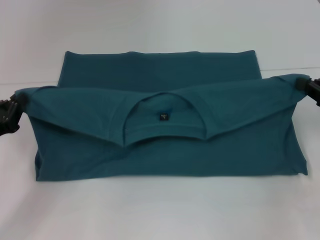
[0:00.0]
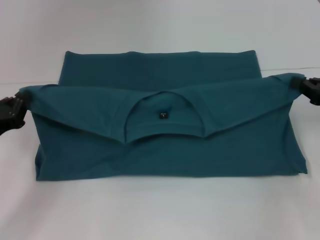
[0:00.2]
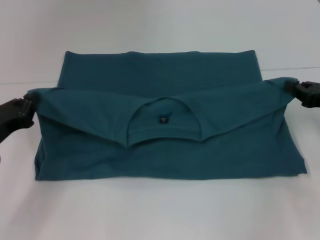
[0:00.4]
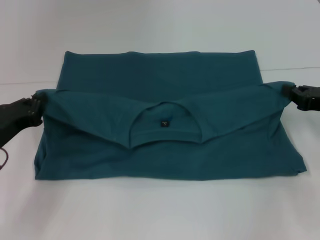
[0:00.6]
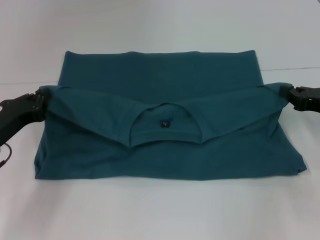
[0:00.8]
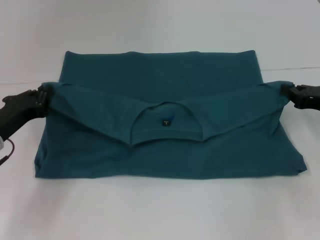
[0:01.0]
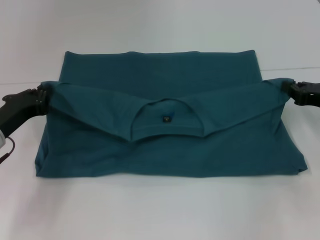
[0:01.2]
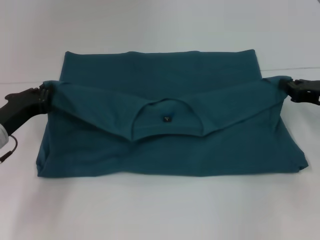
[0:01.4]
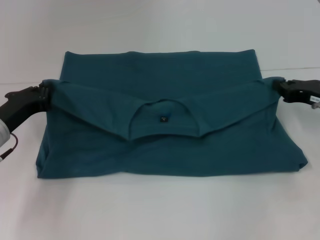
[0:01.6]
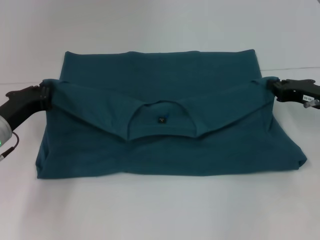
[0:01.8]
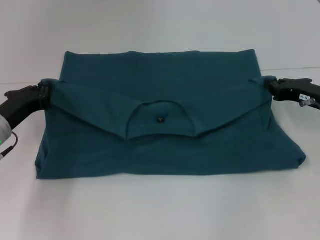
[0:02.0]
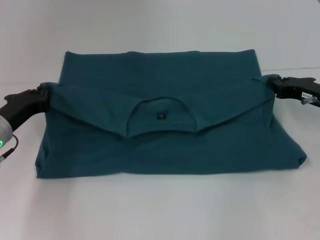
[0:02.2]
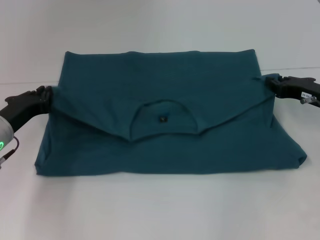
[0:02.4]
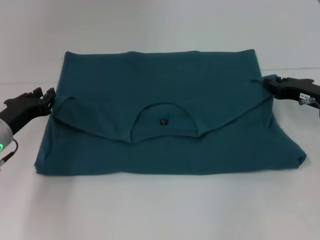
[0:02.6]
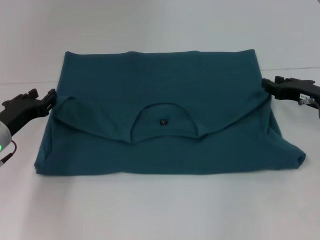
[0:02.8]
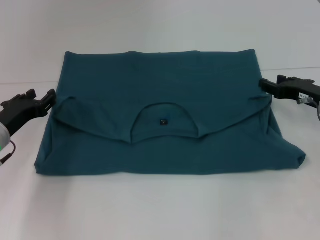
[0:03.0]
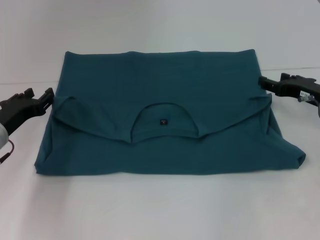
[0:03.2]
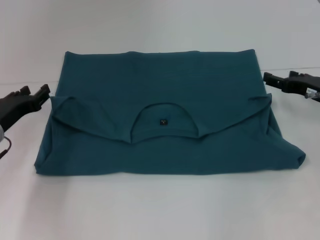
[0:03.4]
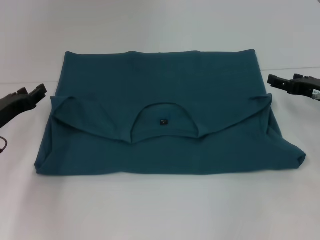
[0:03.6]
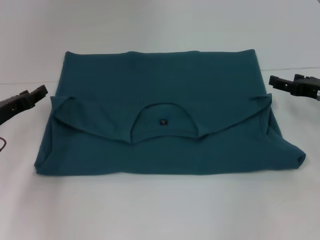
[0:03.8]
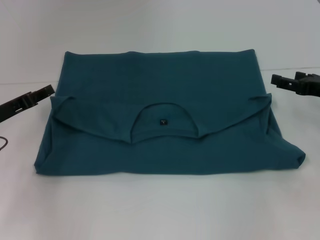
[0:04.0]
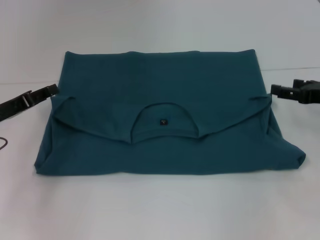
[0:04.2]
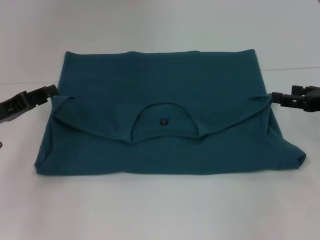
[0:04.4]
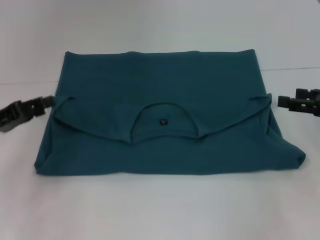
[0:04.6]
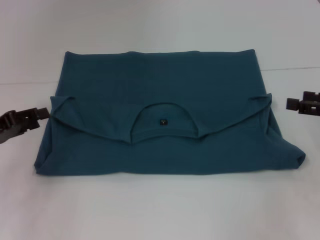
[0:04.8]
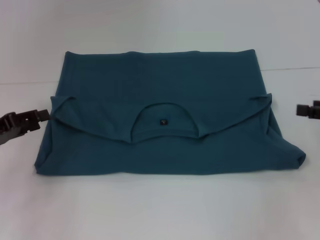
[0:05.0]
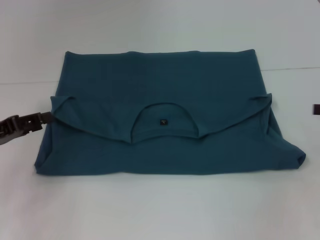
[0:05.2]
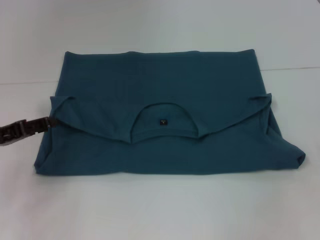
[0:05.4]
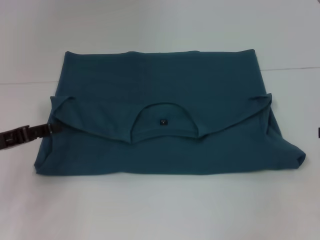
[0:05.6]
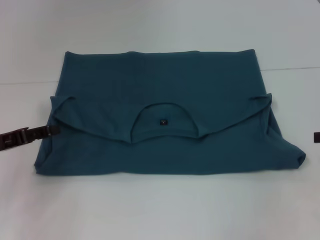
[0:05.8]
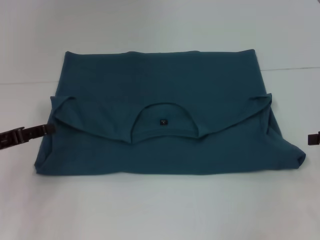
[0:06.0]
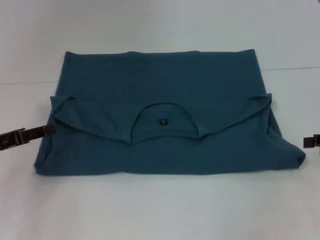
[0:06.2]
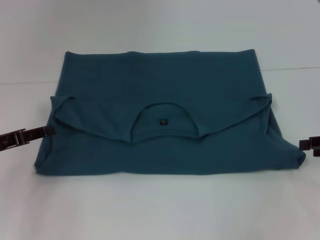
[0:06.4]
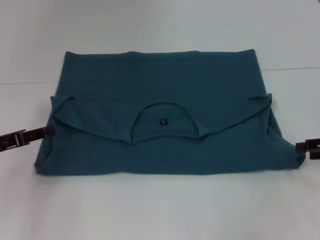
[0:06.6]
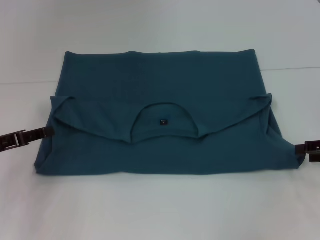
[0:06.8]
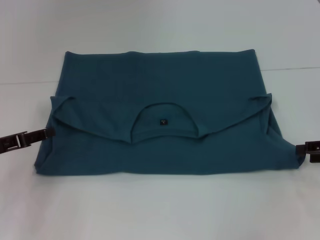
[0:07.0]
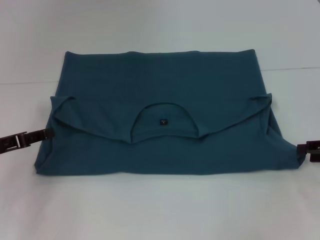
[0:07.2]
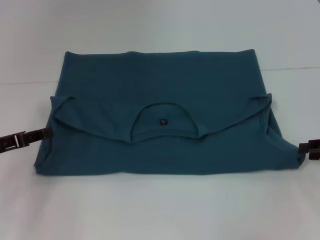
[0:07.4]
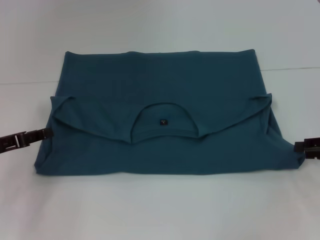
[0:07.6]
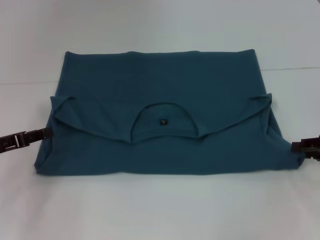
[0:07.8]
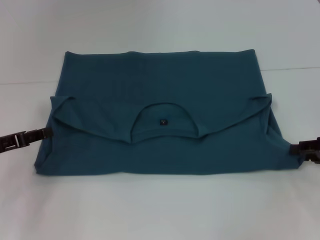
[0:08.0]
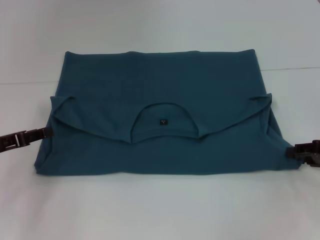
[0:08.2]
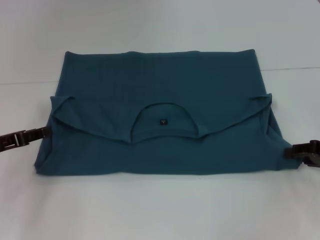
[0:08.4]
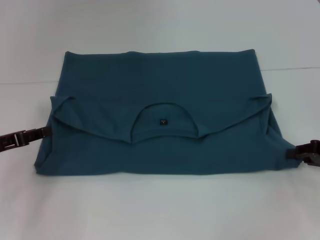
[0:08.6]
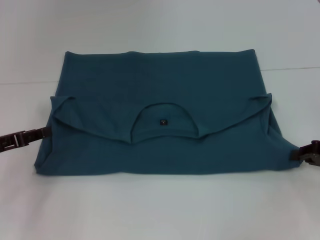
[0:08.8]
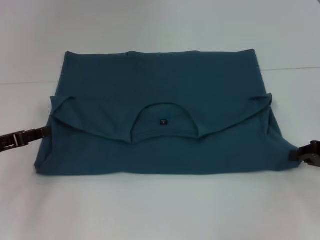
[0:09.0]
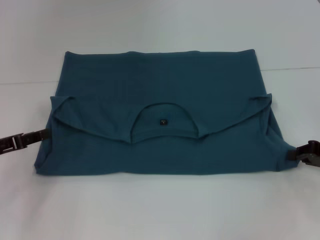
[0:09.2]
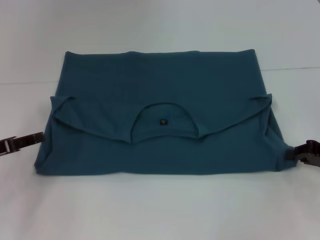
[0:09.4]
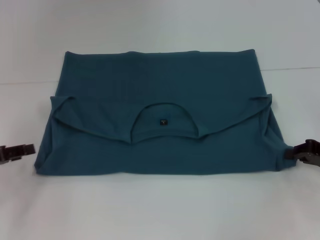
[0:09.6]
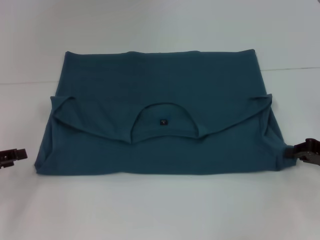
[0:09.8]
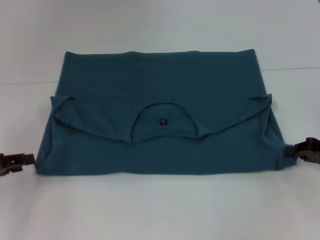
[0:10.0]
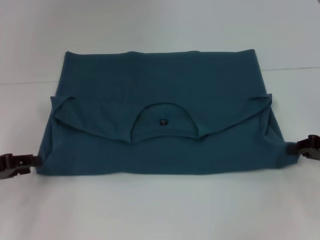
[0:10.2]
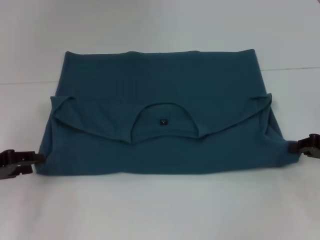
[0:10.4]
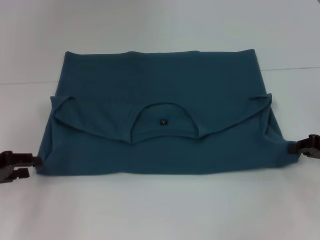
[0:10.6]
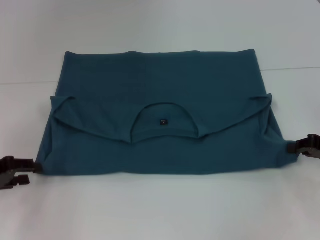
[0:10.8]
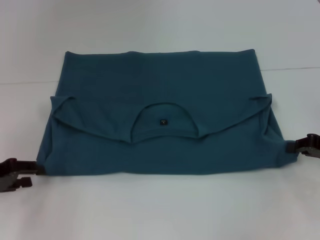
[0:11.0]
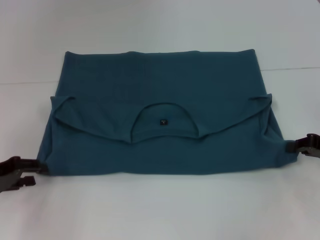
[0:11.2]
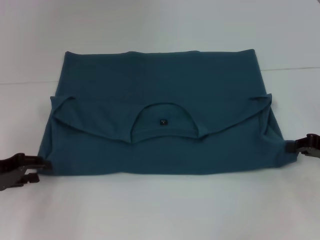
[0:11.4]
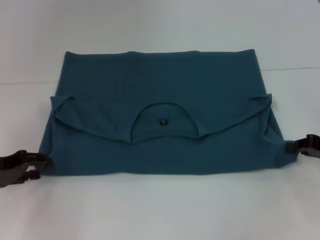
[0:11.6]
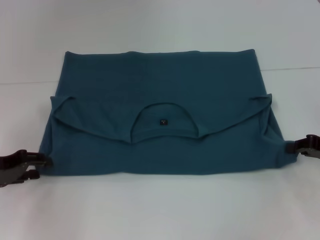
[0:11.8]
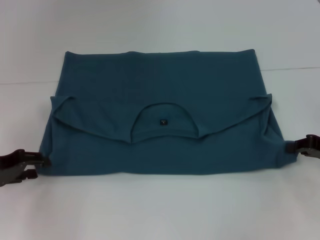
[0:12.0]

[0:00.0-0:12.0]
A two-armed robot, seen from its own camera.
Step, 0:00.0 to 0:02.4: Fold the clothes to the left.
Step, 0:02.6 to 0:02.8: Fold the clothes to the right.
0:00.0 to 0:01.6: The two grippers go about 5 cm forward.
0:01.6 to 0:03.0: The left gripper opens its fingers.
0:03.0 to 0:04.4: The left gripper changes place by roughly 5 cm, while the right gripper changes place by some 5 cm, and opens its fingers.
0:04.4 to 0:06.0: The right gripper heads to the right, covering about 5 cm.
0:10.4 to 0:12.0: The grippers make only small movements.

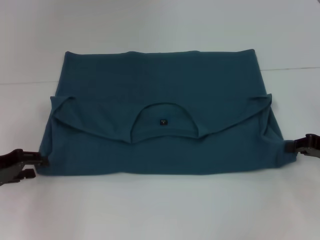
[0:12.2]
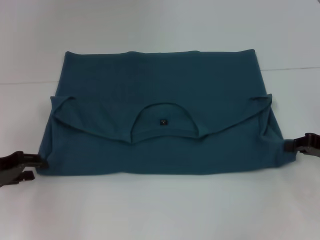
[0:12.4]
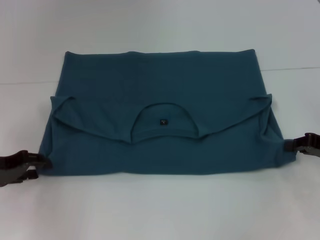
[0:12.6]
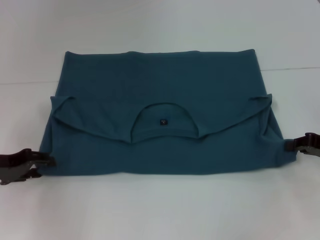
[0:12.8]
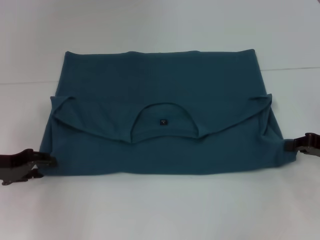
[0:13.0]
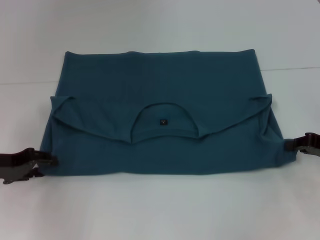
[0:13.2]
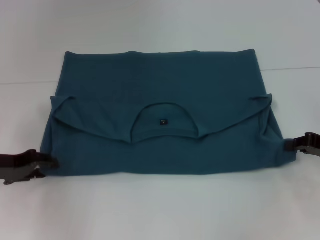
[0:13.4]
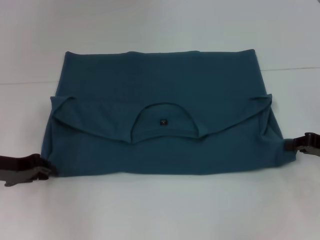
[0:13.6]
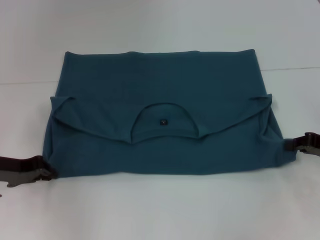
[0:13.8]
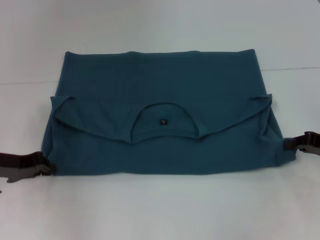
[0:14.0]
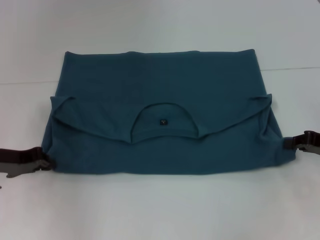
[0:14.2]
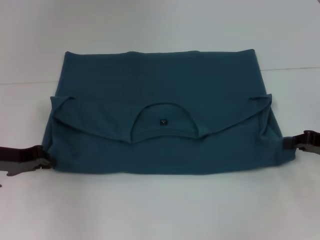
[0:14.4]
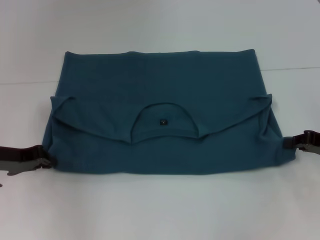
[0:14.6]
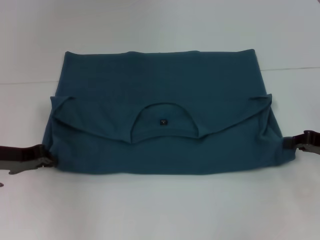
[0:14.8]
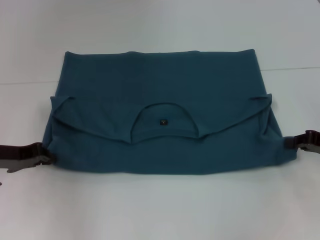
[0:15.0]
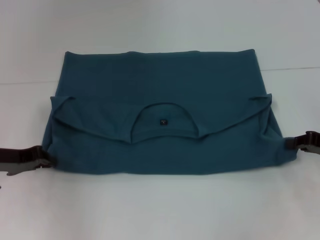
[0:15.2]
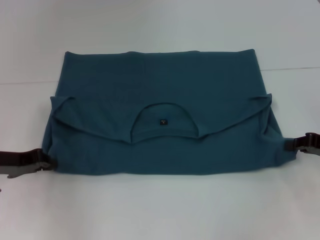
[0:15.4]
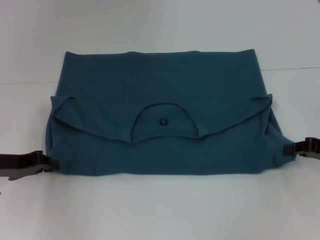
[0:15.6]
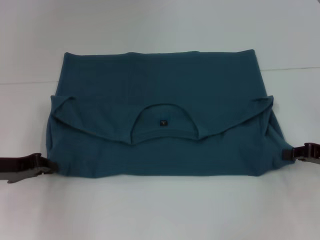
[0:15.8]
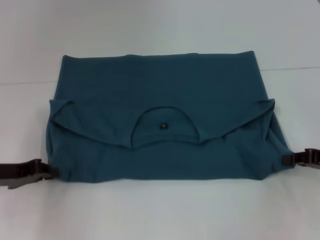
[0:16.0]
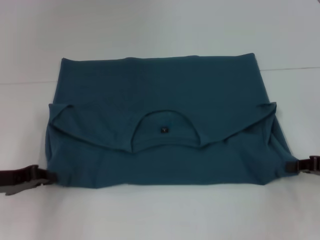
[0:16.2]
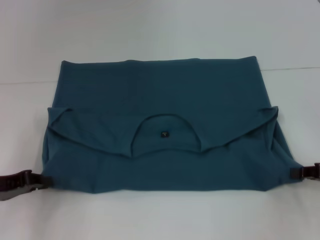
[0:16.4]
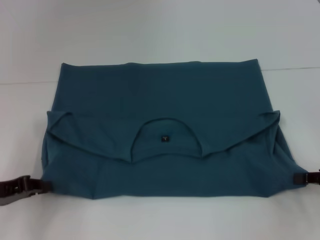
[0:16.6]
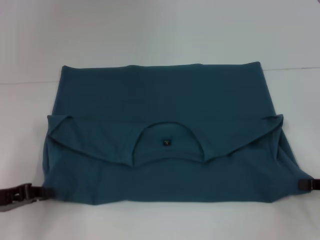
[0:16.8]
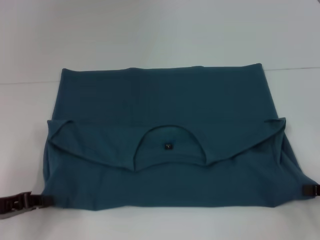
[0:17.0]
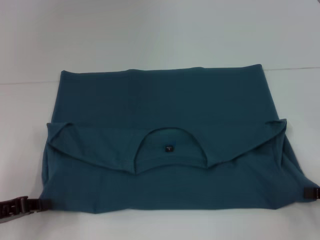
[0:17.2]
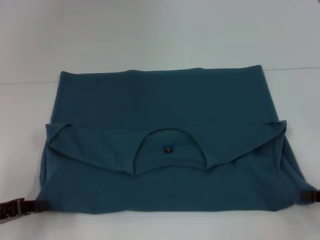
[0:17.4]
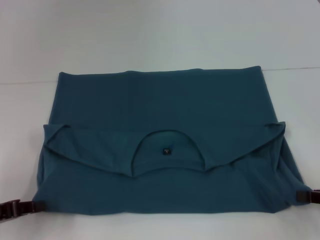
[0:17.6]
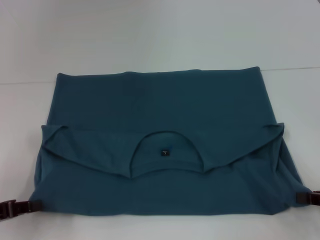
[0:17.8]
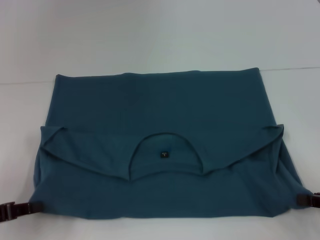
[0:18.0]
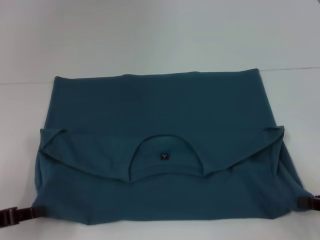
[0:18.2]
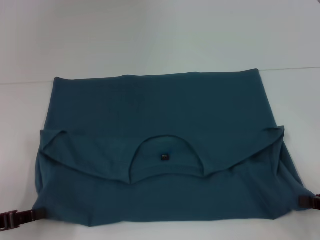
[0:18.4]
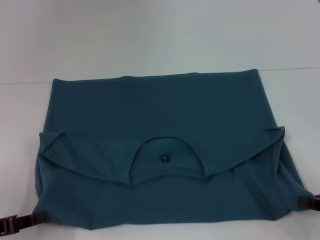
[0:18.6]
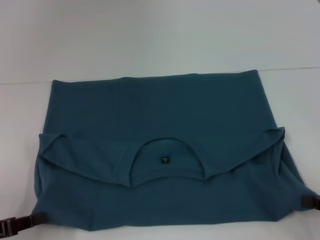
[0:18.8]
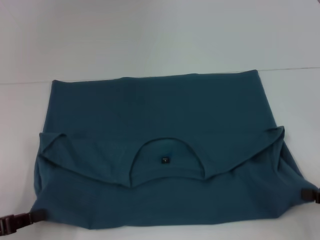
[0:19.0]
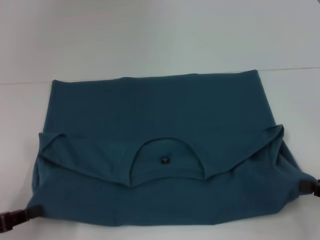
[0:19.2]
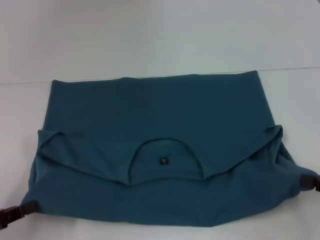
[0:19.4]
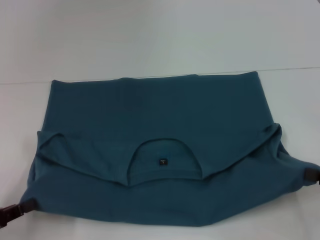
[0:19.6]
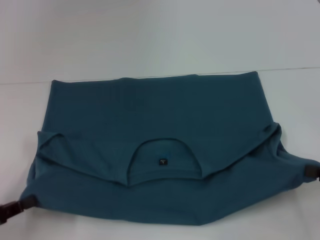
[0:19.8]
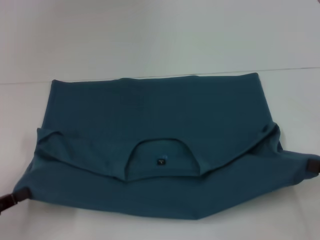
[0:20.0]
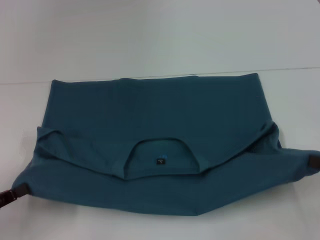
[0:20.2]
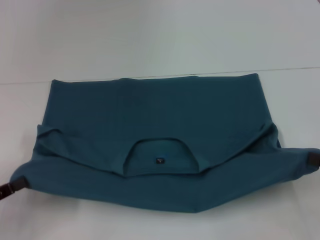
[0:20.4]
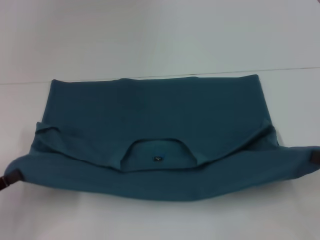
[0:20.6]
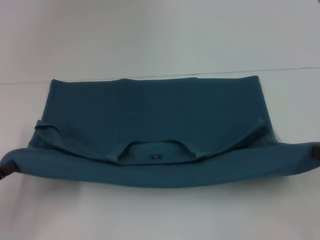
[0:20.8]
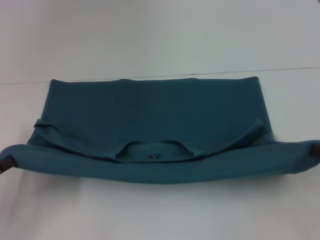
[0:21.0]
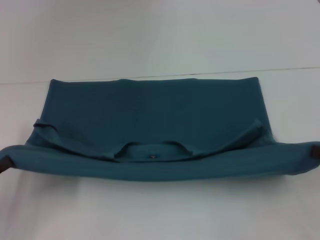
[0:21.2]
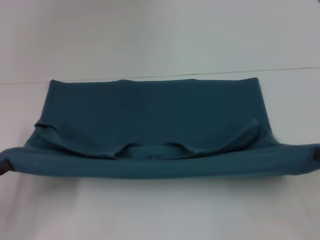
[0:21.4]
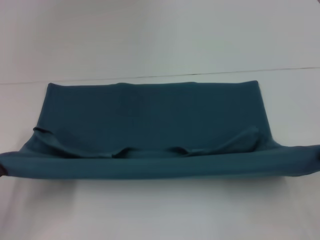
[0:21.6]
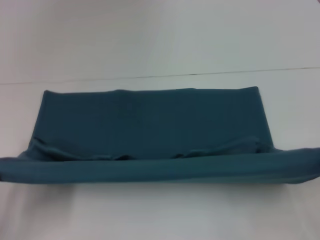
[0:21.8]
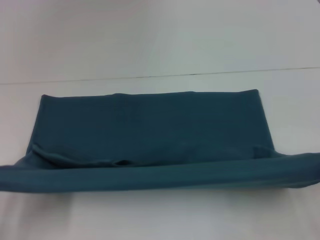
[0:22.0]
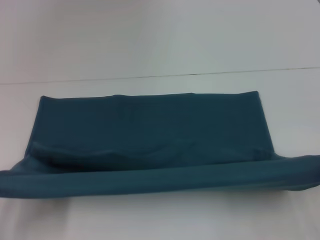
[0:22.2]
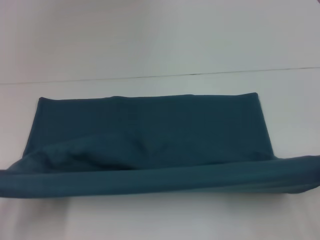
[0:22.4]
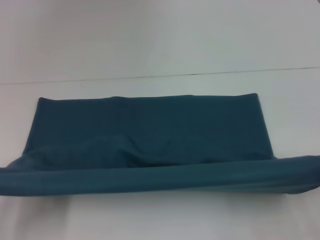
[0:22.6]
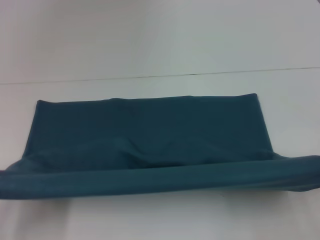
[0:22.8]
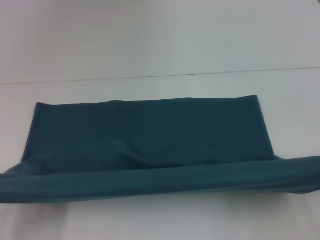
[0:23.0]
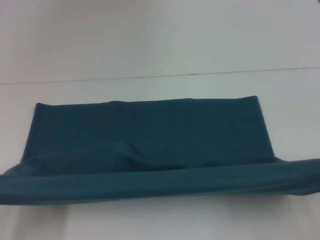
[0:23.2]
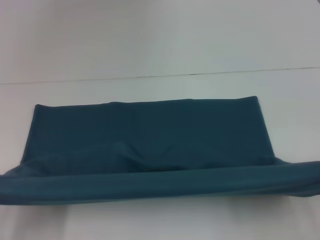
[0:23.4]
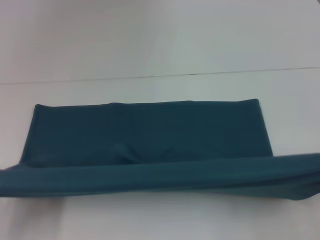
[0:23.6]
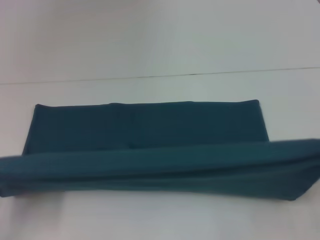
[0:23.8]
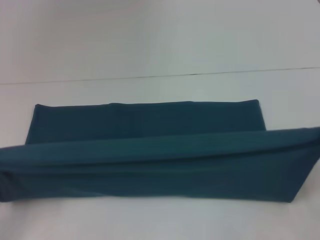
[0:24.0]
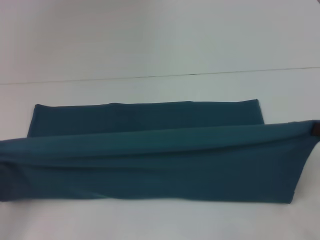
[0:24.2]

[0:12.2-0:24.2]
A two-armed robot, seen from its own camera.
Step, 0:12.2 to 0:18.6: Pull the clothes with your left hand.
Step, 0:12.2 to 0:18.6: Pull the clothes with your right hand.
0:12.2 to 0:15.2: The grippers stay close to where they were, moving slightly.
0:15.2 to 0:16.6: The grippers both shift backward by roughly 5 cm.
0:16.6 to 0:18.2: The left gripper ends up roughly 5 cm from where it was.
0:18.2 to 0:19.8: The grippers move only a little.
0:21.2 to 0:22.6: The left gripper travels backward by about 5 cm.
0:22.6 to 0:24.2: The grippers both shift forward by roughly 5 cm.
